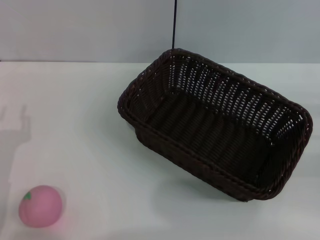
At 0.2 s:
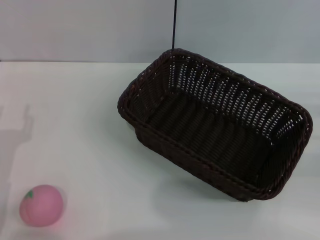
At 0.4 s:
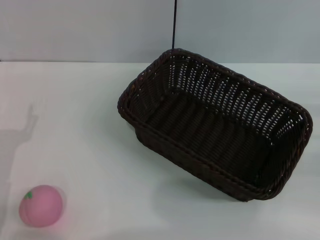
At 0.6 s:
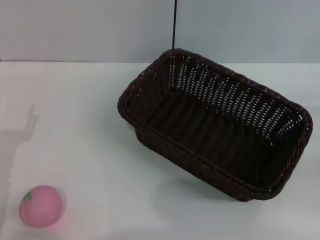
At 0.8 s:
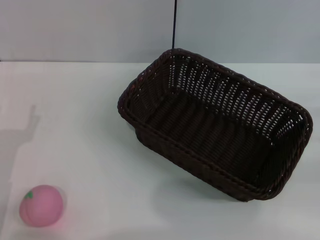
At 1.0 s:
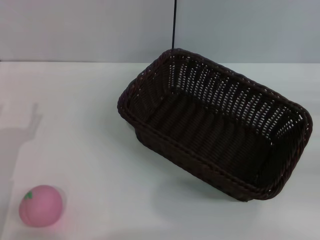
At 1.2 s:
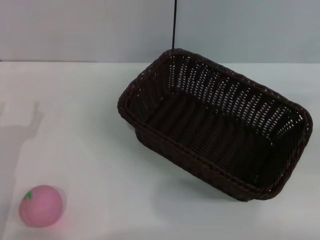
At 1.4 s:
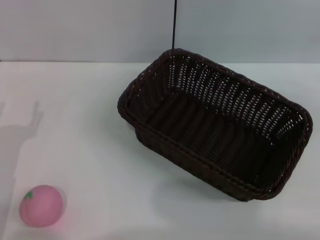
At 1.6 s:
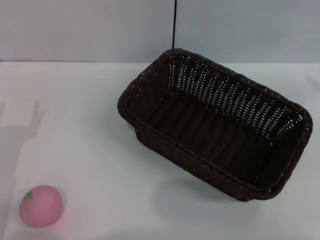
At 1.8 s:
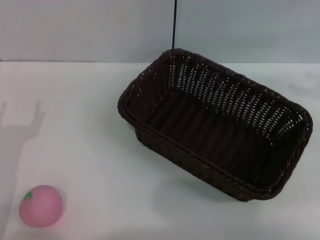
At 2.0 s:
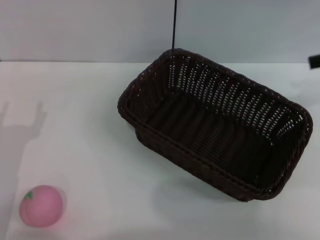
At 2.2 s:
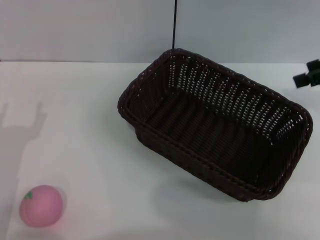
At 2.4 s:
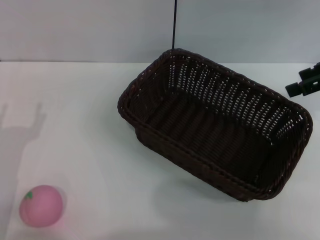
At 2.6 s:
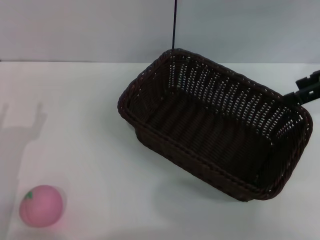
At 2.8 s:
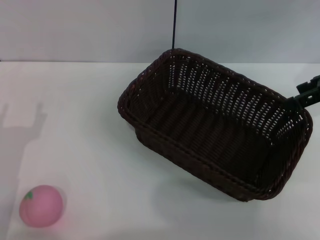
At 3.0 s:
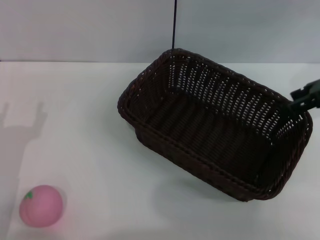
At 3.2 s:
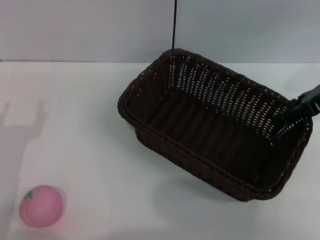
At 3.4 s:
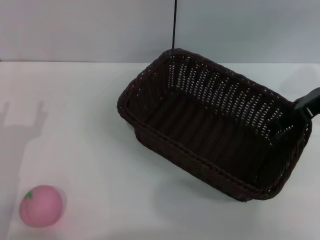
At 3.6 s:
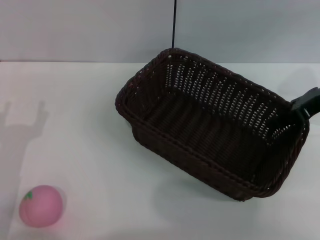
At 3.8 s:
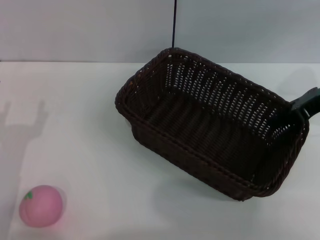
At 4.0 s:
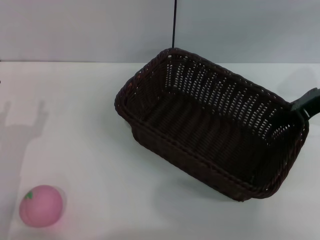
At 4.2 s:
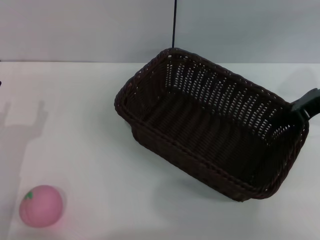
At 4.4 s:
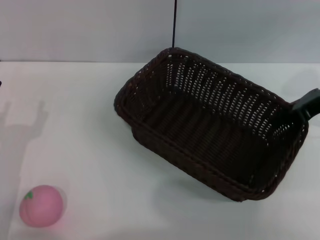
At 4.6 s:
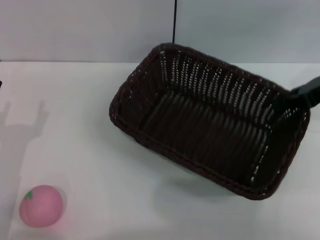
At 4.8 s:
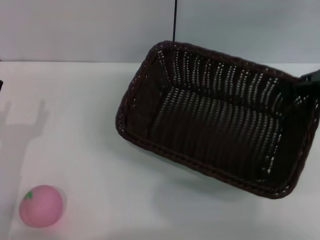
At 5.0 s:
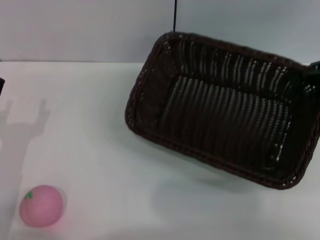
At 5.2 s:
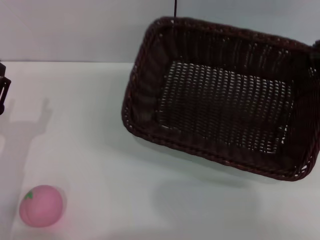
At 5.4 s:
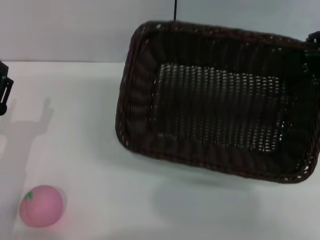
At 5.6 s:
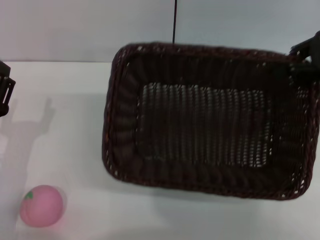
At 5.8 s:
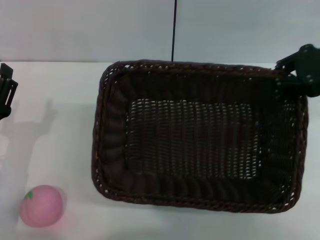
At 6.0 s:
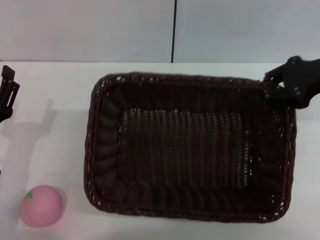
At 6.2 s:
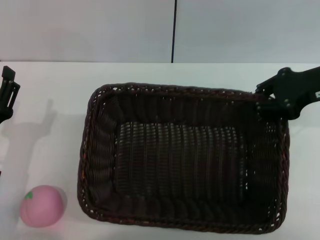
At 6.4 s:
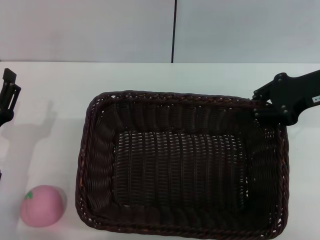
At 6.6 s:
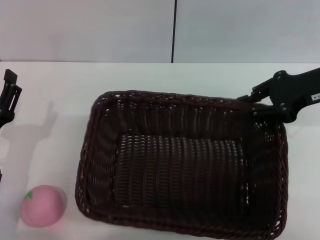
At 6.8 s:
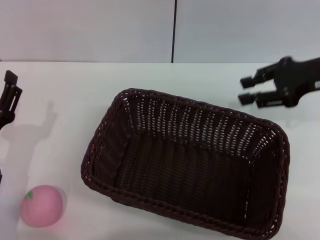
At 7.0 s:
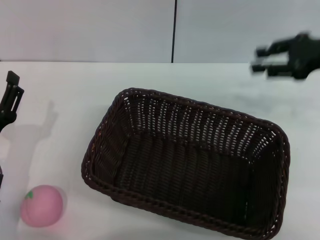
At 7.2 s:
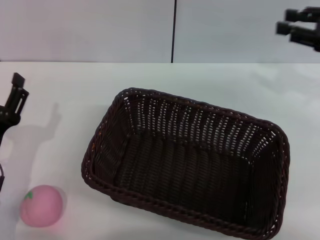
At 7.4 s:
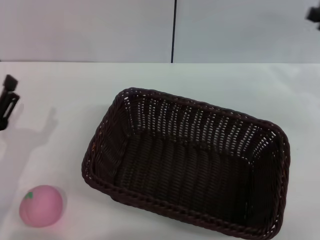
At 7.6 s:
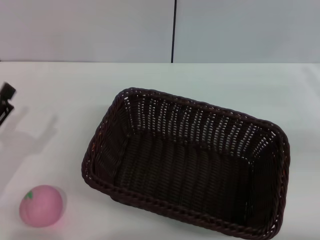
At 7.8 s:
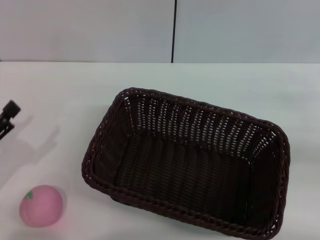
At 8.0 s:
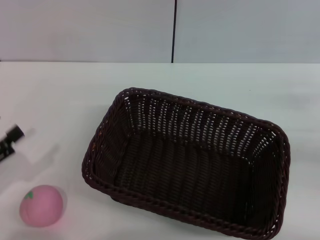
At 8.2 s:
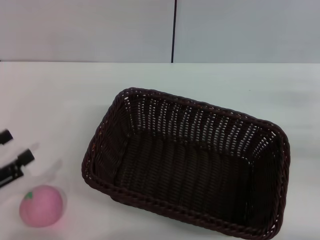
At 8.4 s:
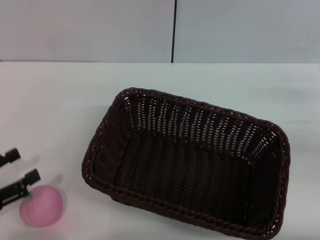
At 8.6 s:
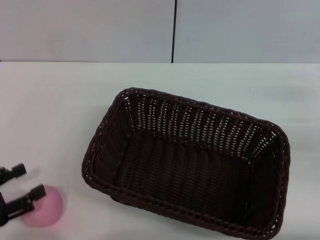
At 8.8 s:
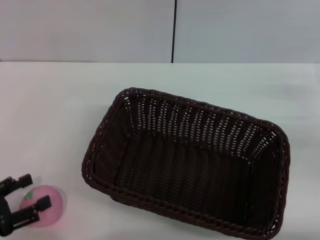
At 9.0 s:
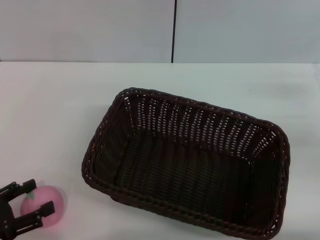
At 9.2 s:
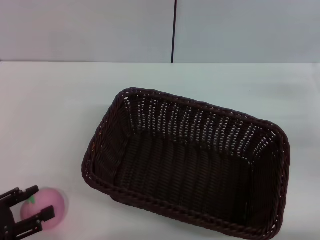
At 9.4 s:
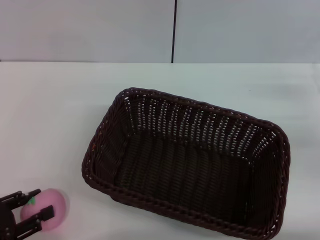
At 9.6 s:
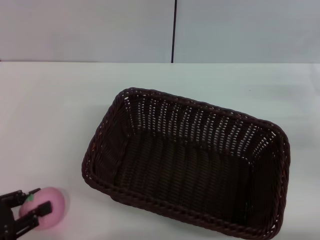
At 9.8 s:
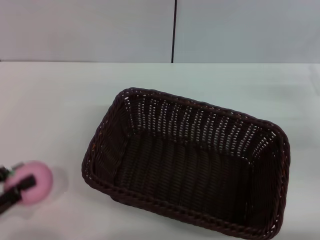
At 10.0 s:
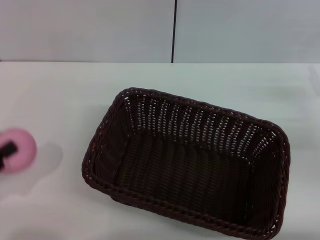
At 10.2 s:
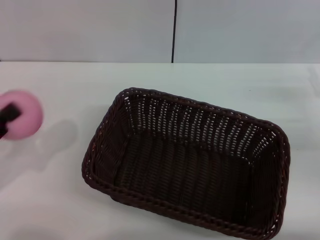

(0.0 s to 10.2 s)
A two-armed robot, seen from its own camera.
Step, 0.0 s - 4.6 s: Pick up the dark basket with the right gripper.
Step, 5.0 s - 6.8 s: Place the dark basket in the center of view with the right gripper.
Step, 7.0 s - 10.2 s: Pick up the peach with the left gripper.
1.4 s - 3.0 s: The right gripper travels to the left and forward by about 15 cm, and opens up.
3.0 s - 4.4 s: The right gripper closes its fingers.
7.2 s - 8.8 s: The left gripper shifts some 10 cm to the left and backward; the right gripper is displaced downward and backward by about 10 cm.
8.8 s - 10.2 s: The left gripper goes approximately 5 cm upward, and closes its fingers.

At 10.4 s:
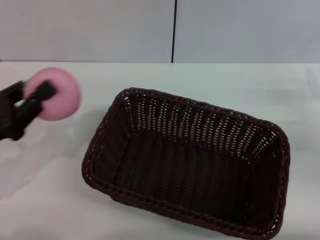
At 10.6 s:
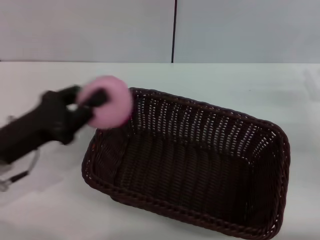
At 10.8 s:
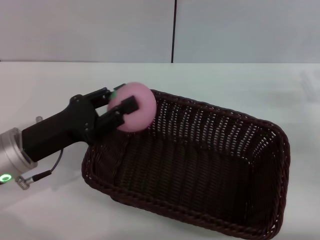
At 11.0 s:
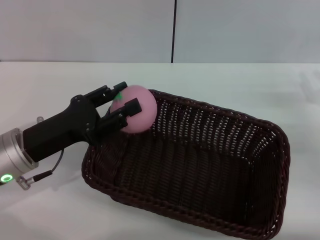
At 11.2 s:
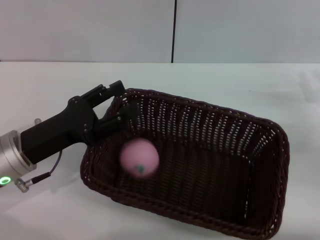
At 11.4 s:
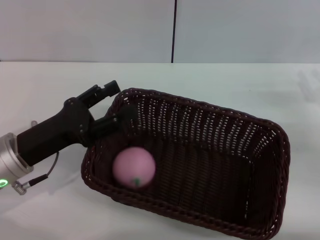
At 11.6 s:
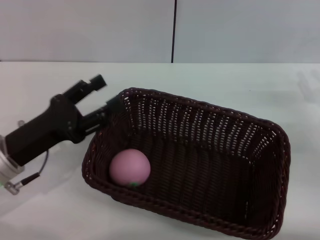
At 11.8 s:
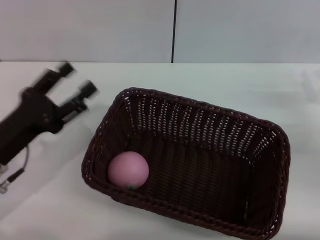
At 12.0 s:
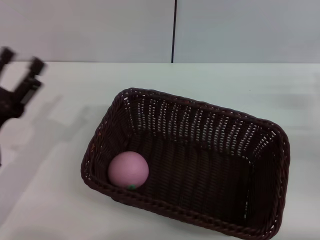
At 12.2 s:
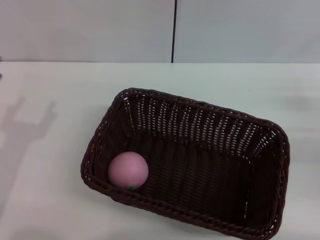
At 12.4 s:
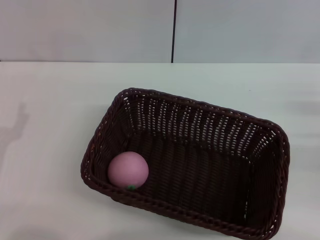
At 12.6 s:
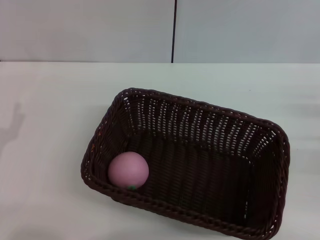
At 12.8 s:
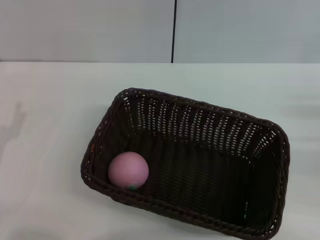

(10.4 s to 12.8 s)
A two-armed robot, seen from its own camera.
Step, 10.4 s - 11.4 s: Place the peach into the basket with the left gripper.
10.4 s - 11.6 s: The left gripper moves to the right, roughly 5 cm, and opens up.
11.6 s - 12.8 s: The right gripper ends up about 5 cm from where it was. The left gripper is displaced to the left by about 5 cm.
